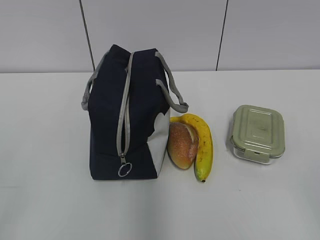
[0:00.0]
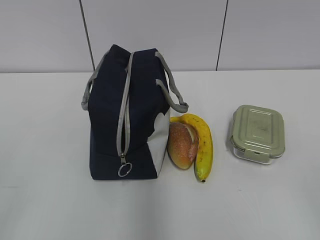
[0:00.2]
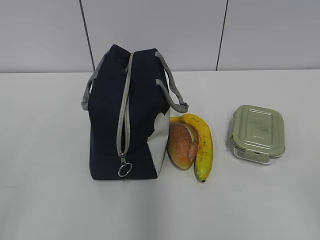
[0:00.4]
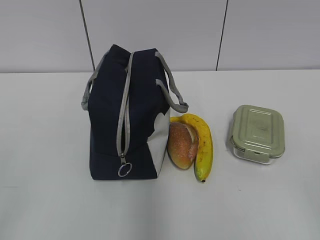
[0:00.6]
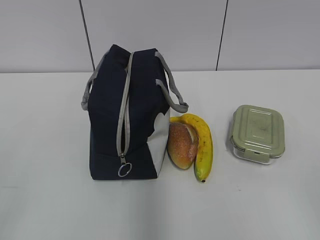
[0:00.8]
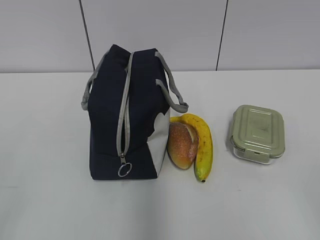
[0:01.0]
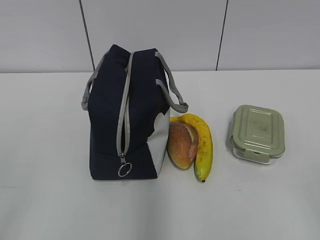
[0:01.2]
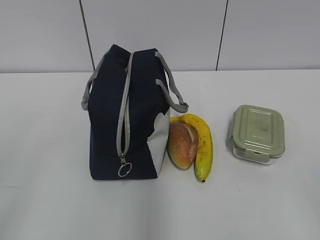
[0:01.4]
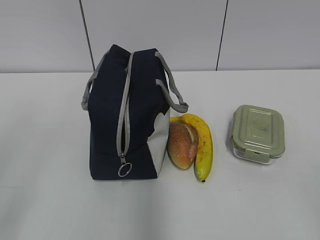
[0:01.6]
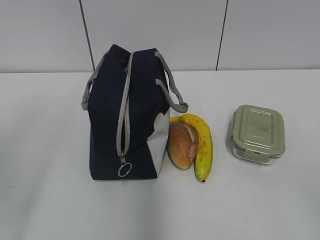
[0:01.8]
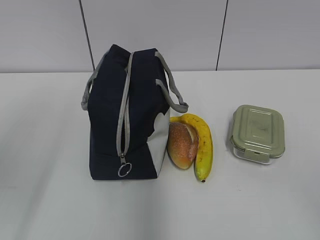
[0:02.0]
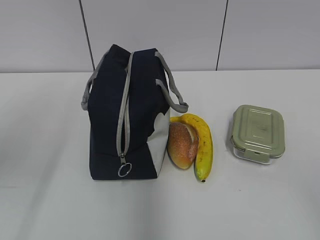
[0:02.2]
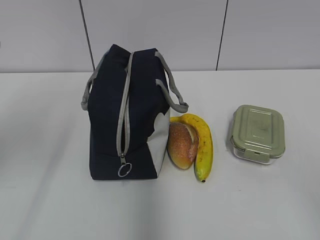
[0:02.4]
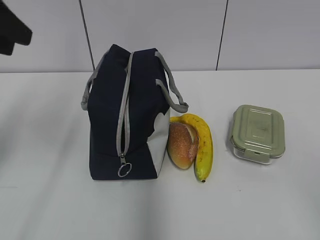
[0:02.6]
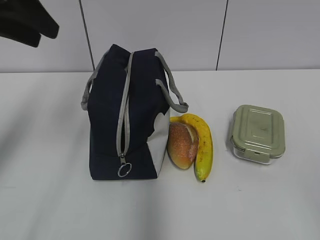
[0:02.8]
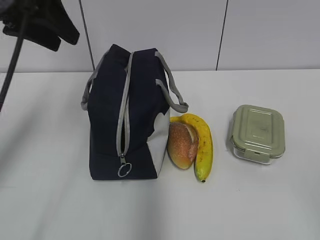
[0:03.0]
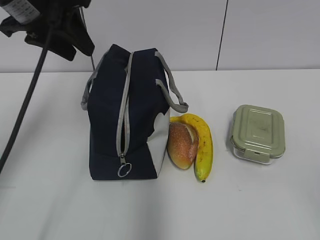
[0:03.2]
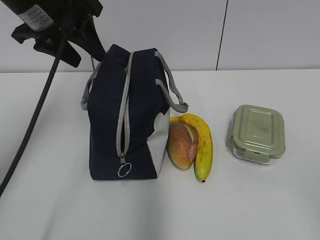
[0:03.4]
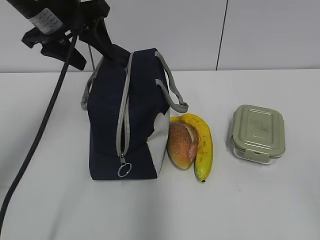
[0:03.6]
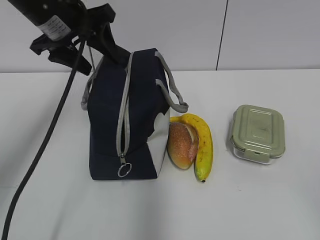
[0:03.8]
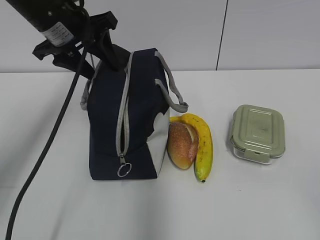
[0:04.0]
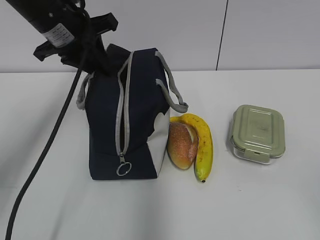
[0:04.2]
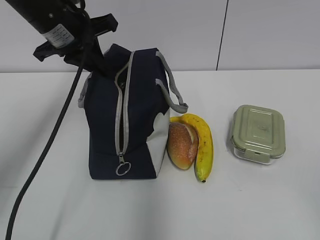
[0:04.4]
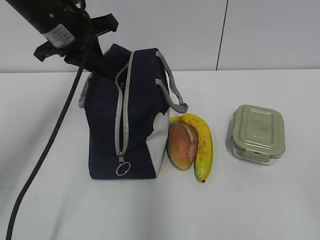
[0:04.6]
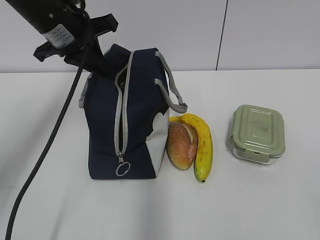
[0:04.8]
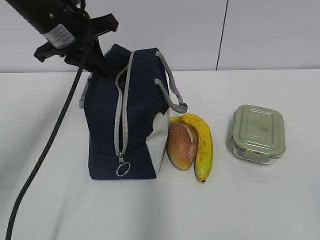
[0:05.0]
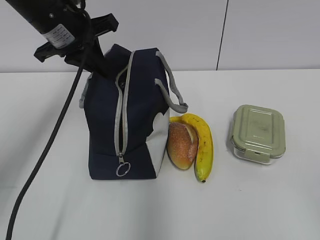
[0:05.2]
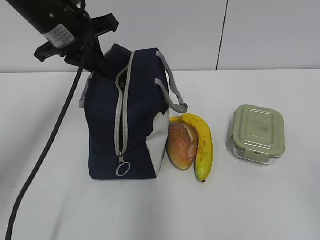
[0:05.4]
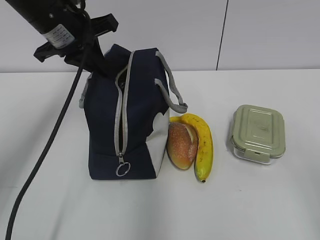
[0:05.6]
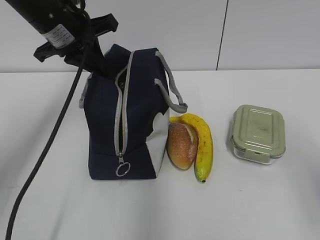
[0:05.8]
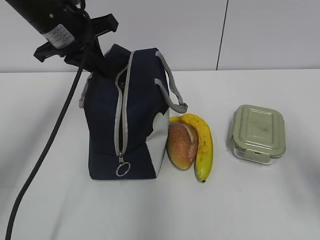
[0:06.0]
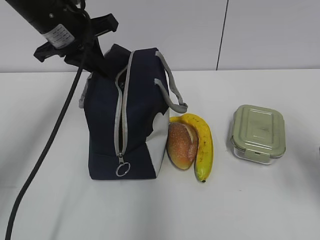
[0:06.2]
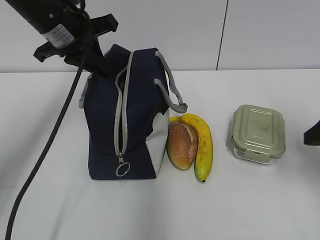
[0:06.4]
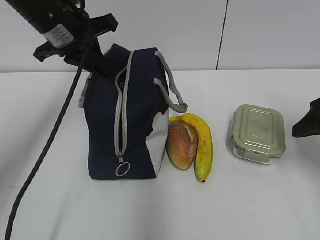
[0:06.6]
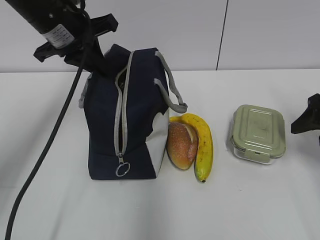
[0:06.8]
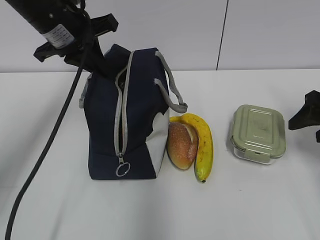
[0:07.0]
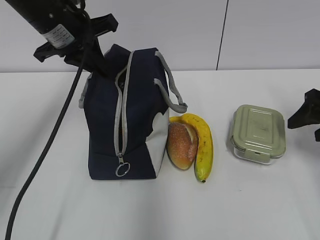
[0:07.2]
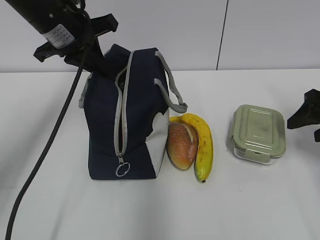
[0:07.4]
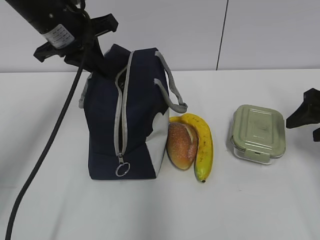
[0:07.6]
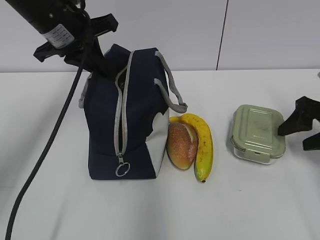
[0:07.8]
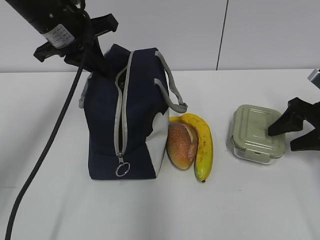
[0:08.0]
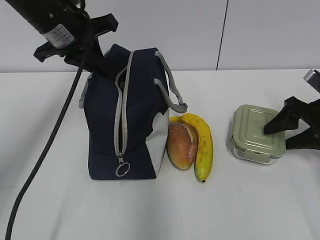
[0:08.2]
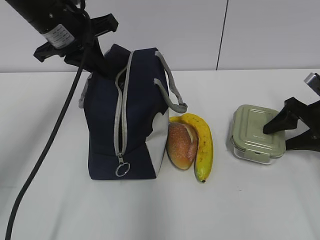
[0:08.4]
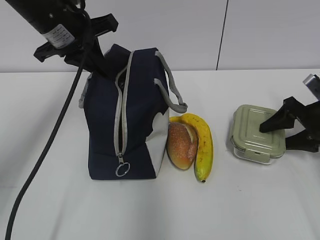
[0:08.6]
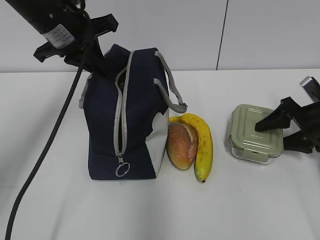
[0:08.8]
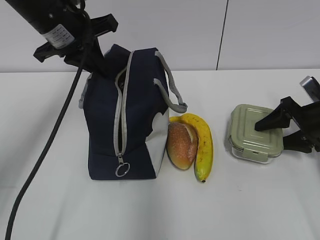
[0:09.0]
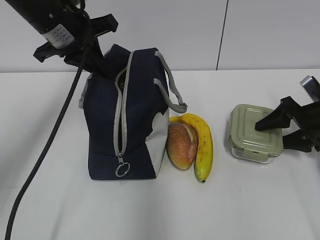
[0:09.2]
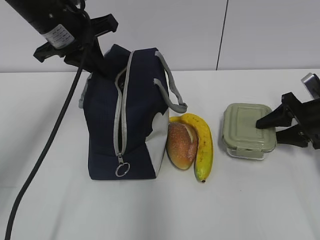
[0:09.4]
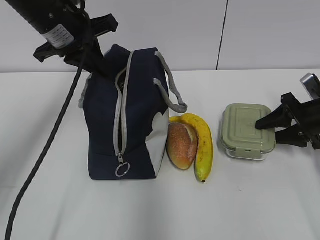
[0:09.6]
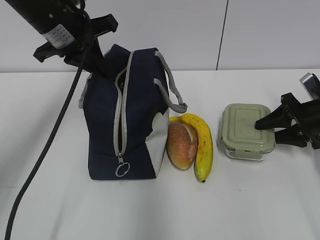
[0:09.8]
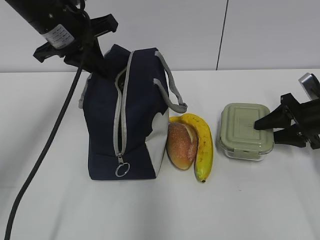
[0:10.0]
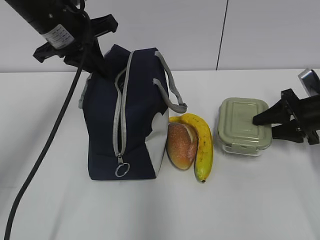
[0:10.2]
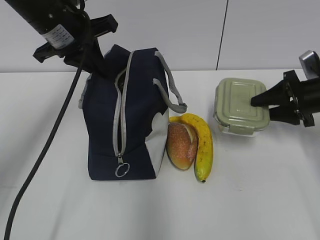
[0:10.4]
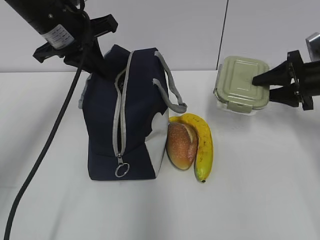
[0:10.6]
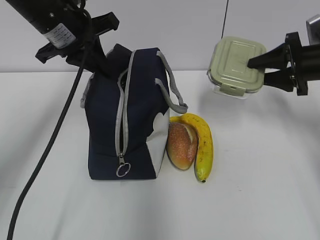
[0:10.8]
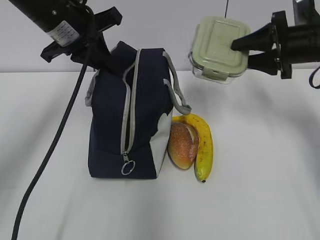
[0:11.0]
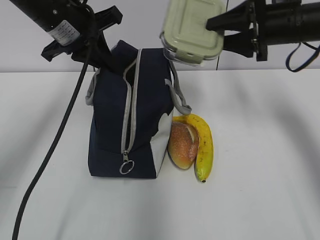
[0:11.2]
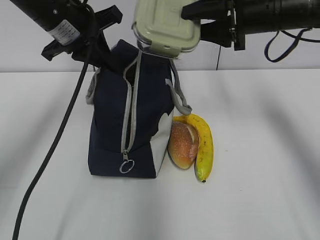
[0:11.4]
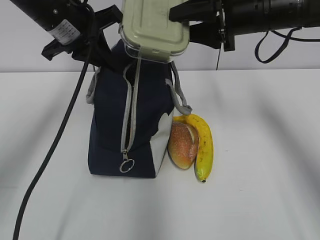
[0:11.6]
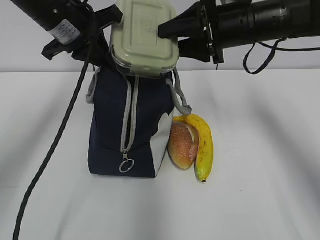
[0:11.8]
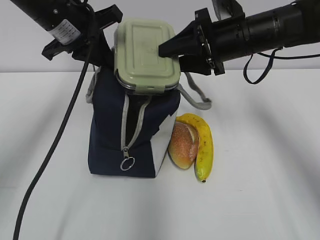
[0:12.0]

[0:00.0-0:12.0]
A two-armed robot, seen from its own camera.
0:01.6 to 0:03.0: The left gripper shifts roughly 25 cm forward.
0:03.0 to 0:04.4: The left gripper is displaced downward and forward by some 10 cm, and closes.
0:04.4 to 0:06.0: The right gripper heads forward, covering some 15 cm.
0:06.0 to 0:07.6: The right gripper heads forward, covering some 15 cm.
0:07.6 to 0:09.0: The right gripper shifts about 5 cm downward.
0:09.0 to 0:10.4: The grippers move only a little.
0:10.4 to 0:12.0: The right gripper is displaced to the left and upward by roughly 20 cm.

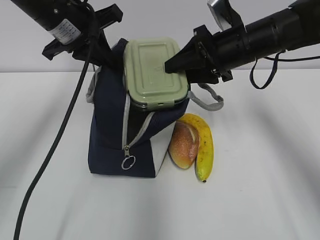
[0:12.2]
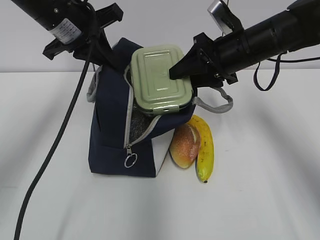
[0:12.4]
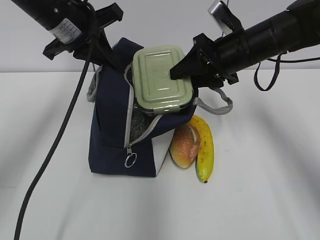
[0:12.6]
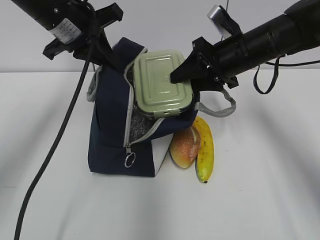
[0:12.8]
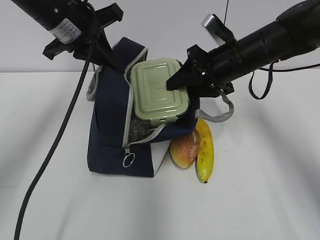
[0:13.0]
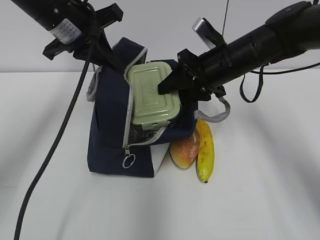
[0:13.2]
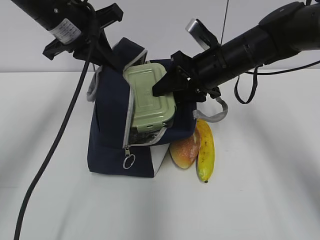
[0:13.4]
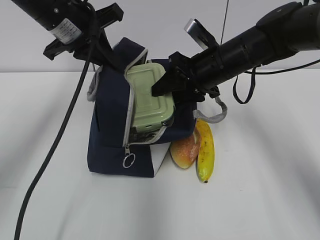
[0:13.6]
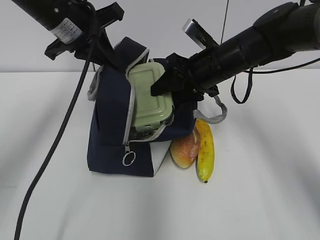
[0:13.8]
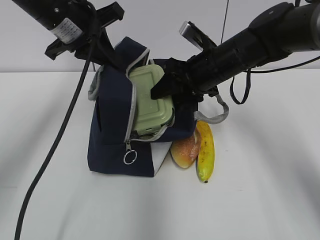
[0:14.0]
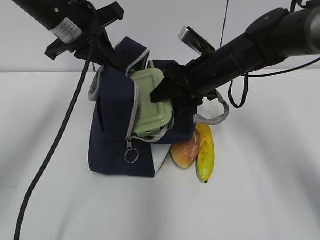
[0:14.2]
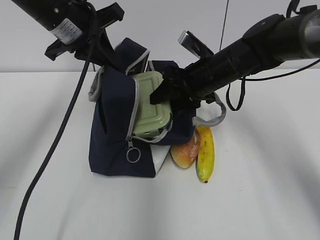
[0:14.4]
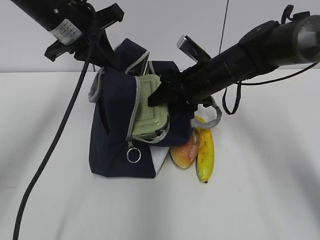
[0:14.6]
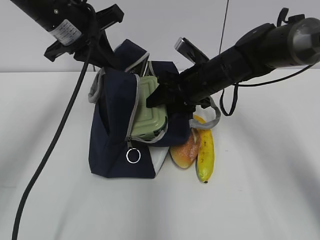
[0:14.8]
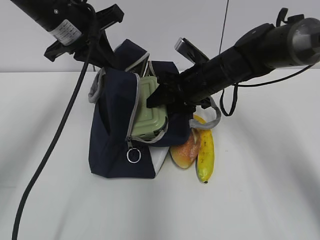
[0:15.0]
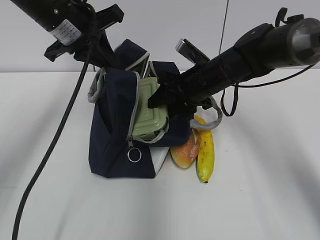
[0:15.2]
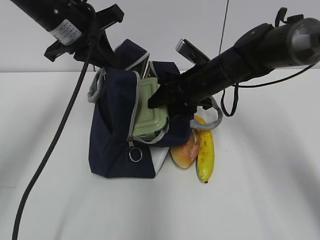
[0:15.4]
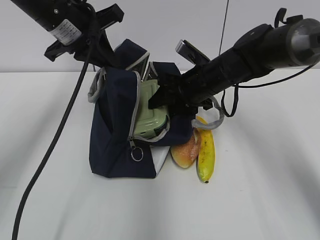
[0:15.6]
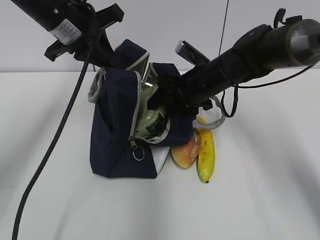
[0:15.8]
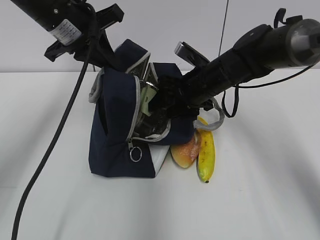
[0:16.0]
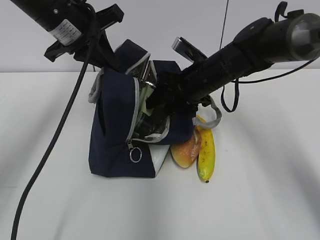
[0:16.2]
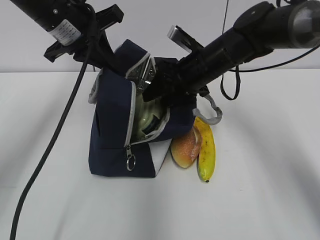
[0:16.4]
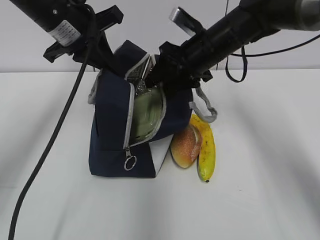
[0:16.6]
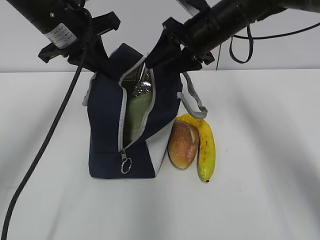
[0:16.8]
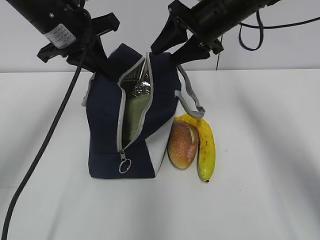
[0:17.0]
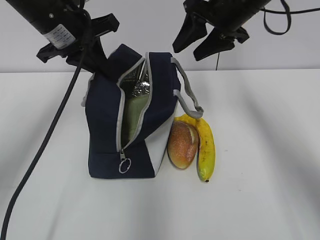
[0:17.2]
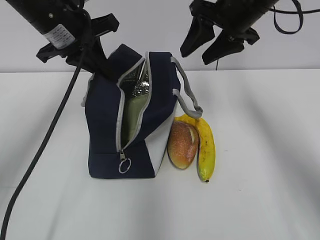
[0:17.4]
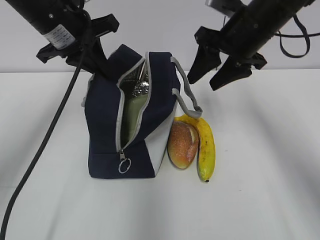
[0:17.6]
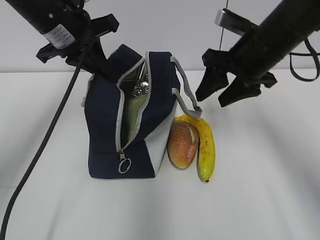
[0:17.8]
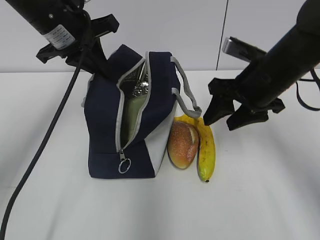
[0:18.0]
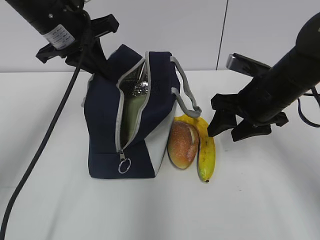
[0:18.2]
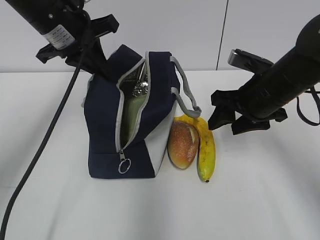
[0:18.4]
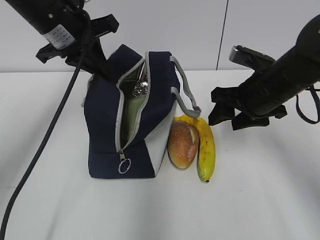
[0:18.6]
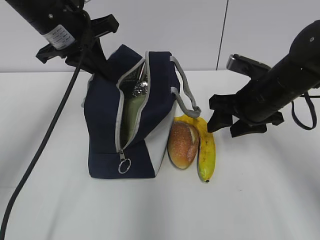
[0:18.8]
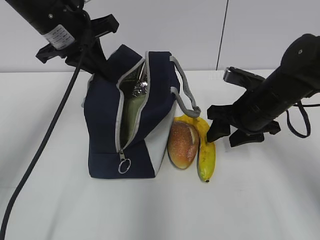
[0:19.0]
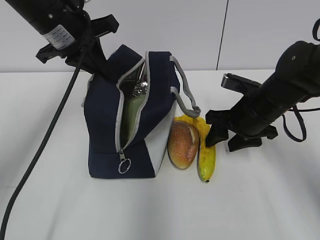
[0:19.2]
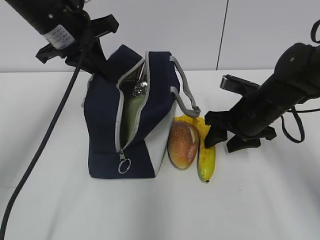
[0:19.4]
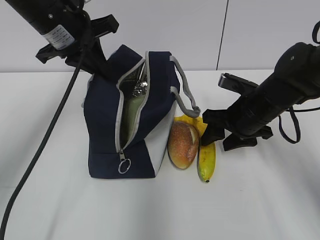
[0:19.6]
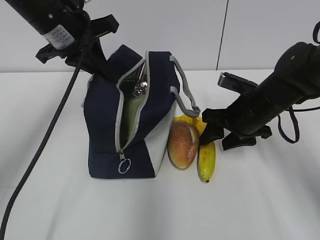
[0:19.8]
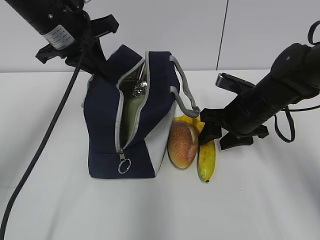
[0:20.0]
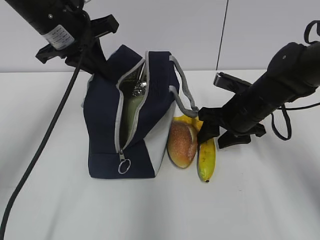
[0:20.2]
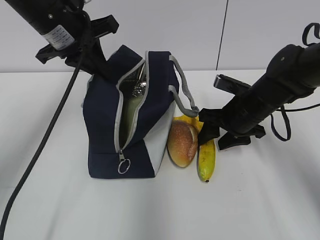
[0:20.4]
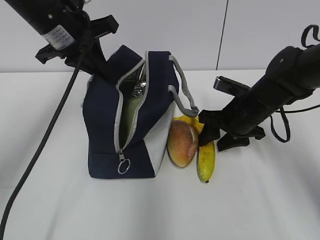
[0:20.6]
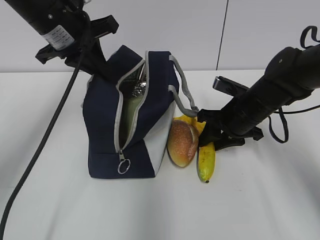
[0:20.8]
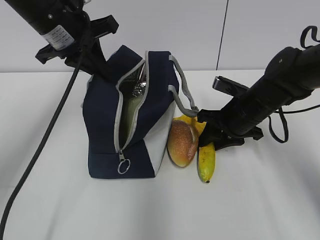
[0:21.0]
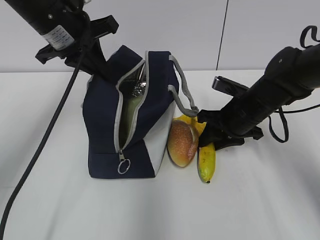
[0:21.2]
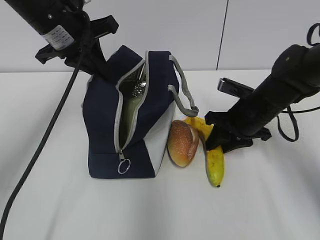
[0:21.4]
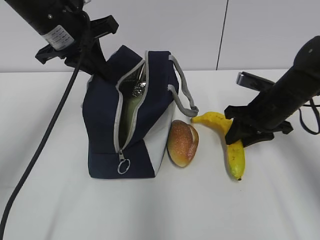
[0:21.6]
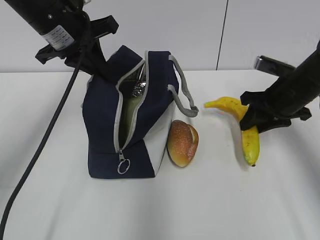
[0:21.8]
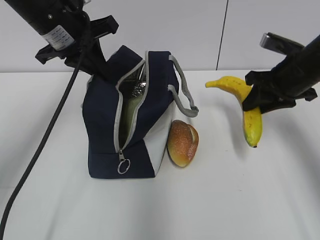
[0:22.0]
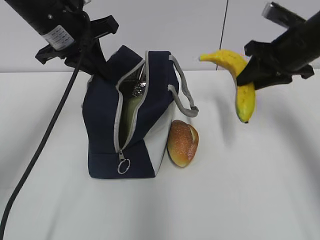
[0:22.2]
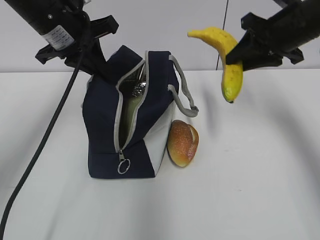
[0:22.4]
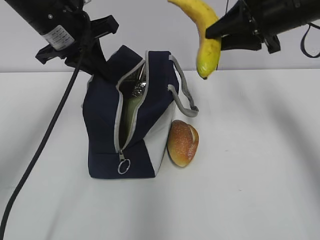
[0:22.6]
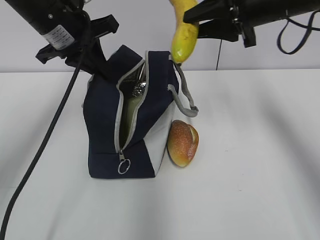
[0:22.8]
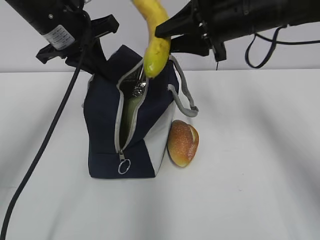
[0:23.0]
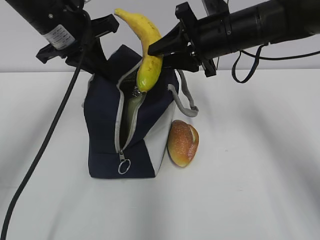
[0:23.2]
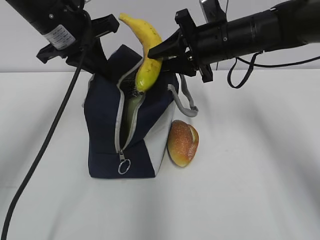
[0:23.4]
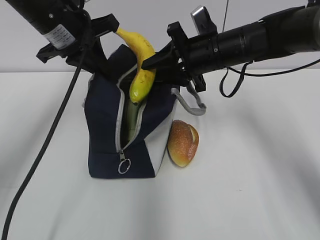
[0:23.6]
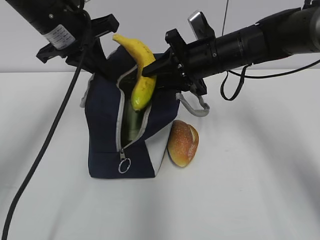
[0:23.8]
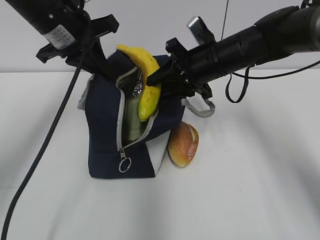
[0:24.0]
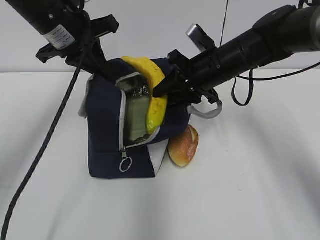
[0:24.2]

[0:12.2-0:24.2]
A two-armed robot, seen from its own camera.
0:12.2 to 0:13.8: The grippers move only a little.
0:13.8 to 0:15.2: There are only small adjustments of the grippers.
0:15.2 to 0:16.6: The right gripper shifts approximately 5 cm upward.
0:16.6 to 0:18.2: The right gripper shifts some 10 cm backward and to the right, and reaches some 10 cm upward, then returns.
0:18.2 to 0:19.8: The right gripper travels downward by roughly 5 cm.
0:19.8 to 0:21.2: The grippers make only small movements.
0:21.2 to 0:22.6: The right gripper travels upward by about 20 cm.
0:22.6 to 0:24.2: The right gripper moves downward and to the left, roughly 15 cm.
